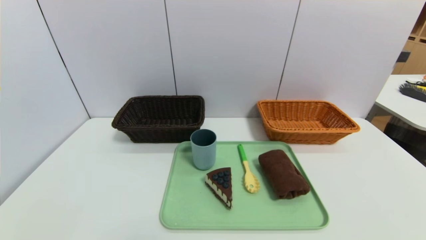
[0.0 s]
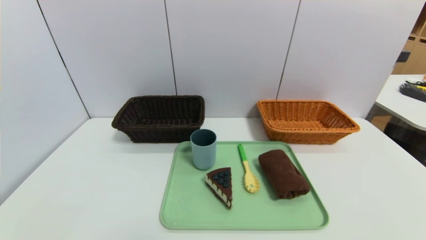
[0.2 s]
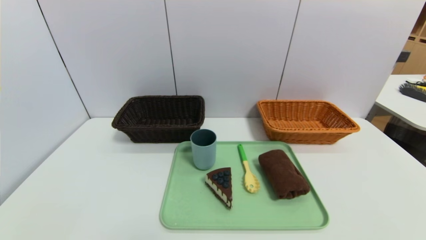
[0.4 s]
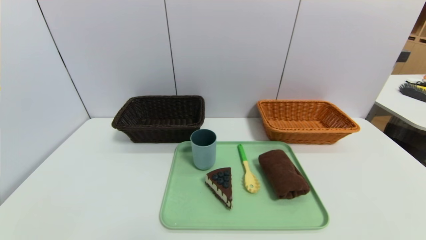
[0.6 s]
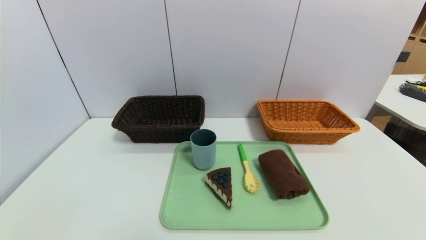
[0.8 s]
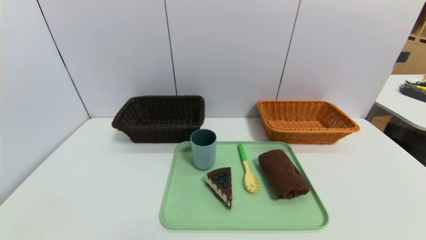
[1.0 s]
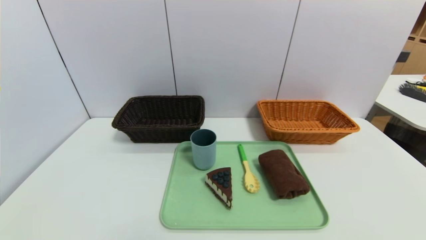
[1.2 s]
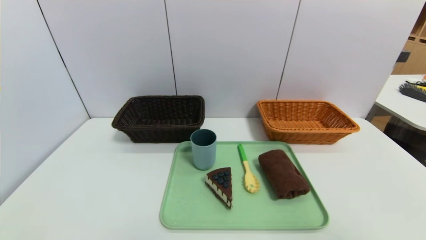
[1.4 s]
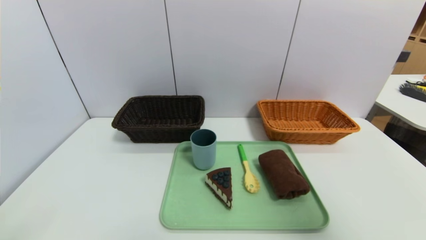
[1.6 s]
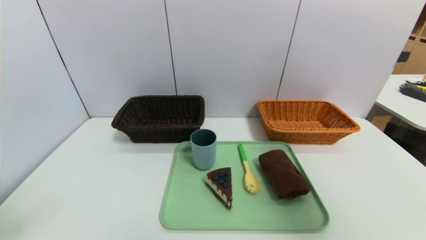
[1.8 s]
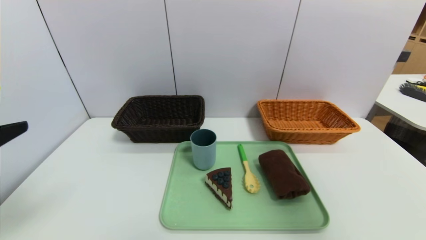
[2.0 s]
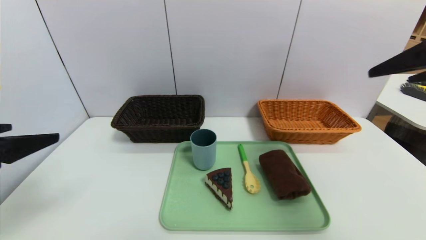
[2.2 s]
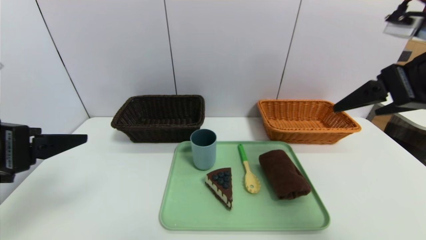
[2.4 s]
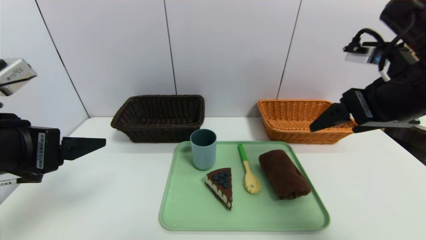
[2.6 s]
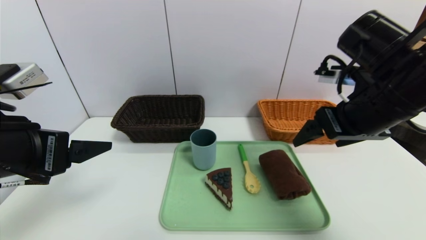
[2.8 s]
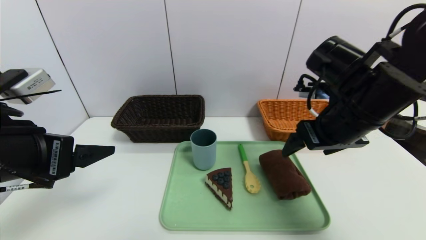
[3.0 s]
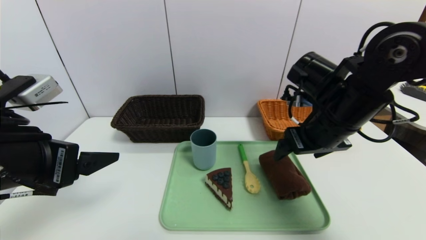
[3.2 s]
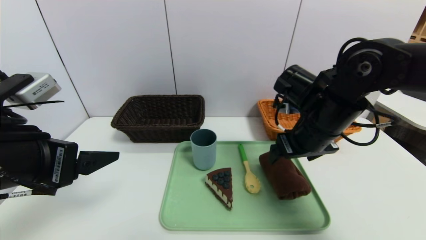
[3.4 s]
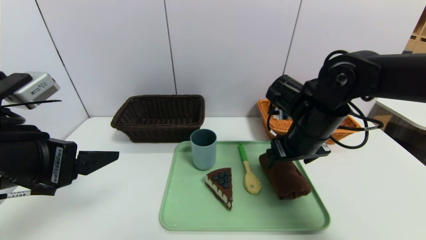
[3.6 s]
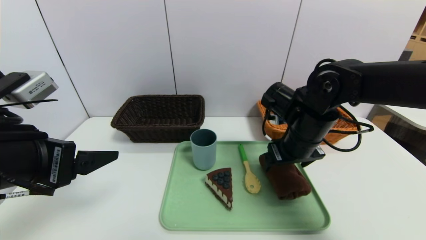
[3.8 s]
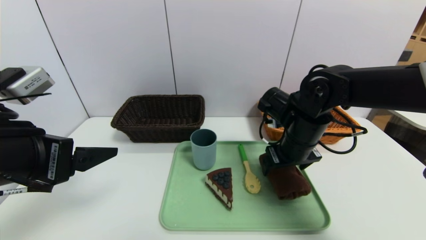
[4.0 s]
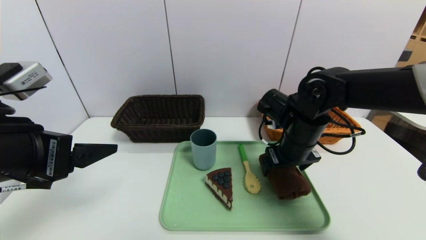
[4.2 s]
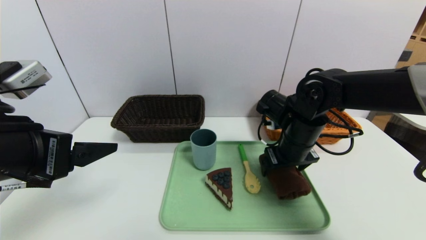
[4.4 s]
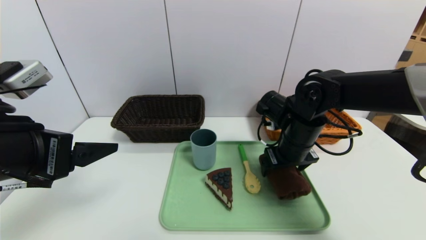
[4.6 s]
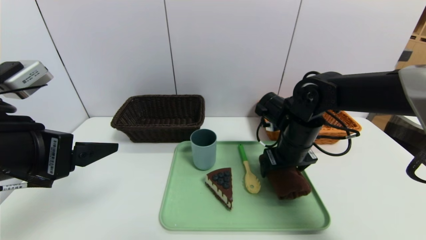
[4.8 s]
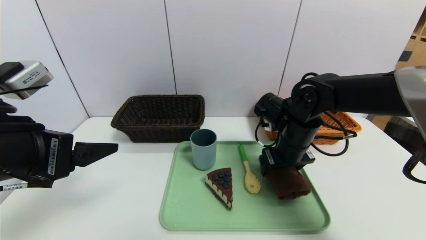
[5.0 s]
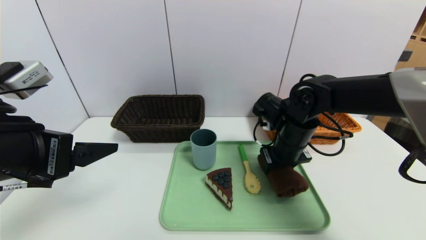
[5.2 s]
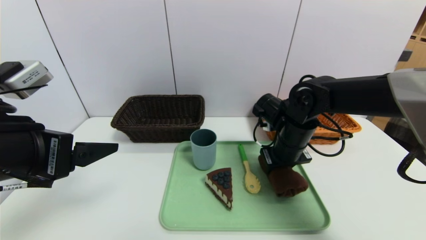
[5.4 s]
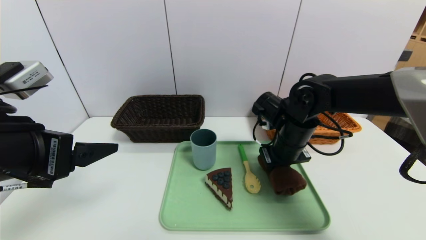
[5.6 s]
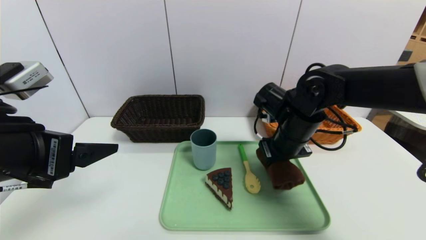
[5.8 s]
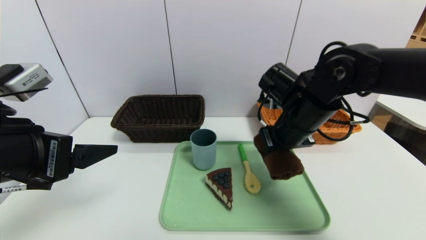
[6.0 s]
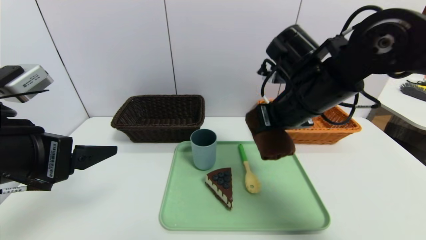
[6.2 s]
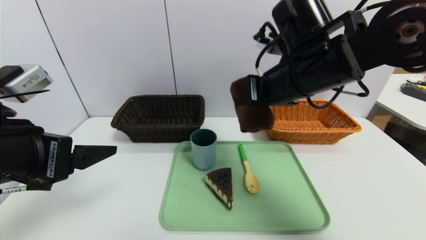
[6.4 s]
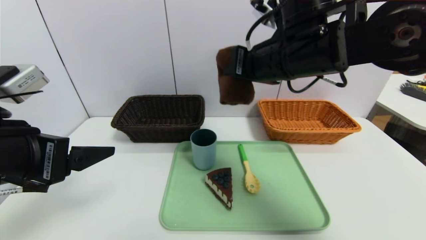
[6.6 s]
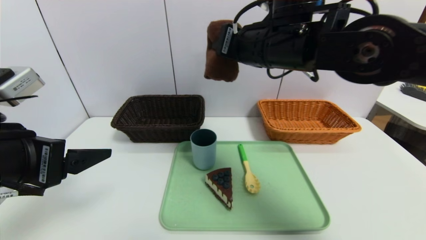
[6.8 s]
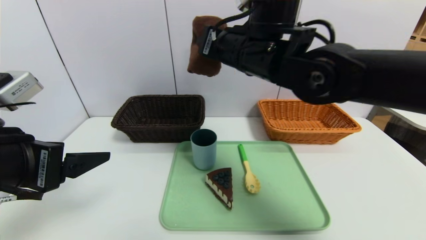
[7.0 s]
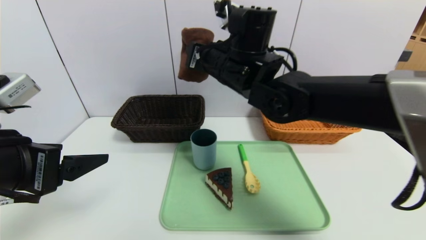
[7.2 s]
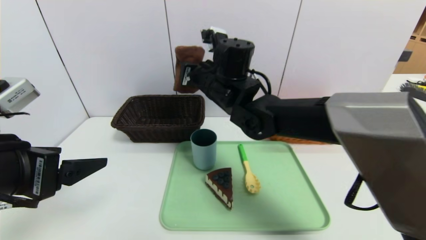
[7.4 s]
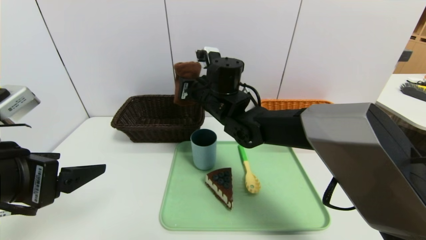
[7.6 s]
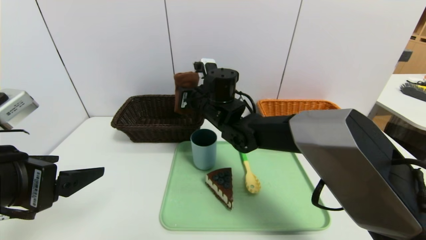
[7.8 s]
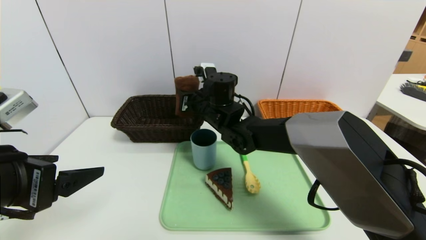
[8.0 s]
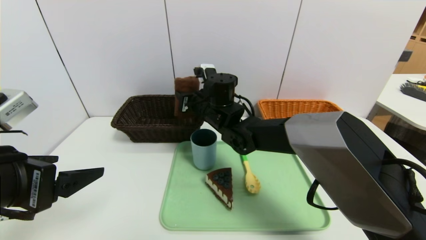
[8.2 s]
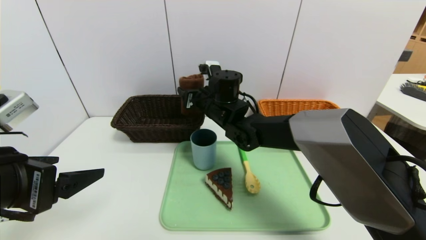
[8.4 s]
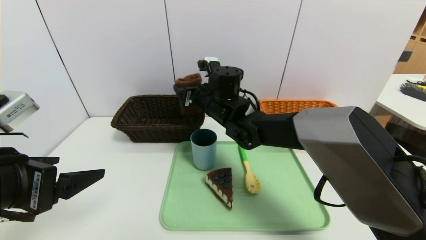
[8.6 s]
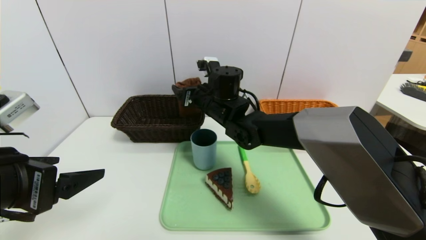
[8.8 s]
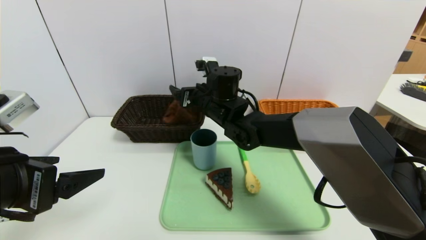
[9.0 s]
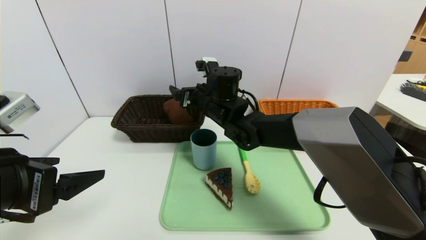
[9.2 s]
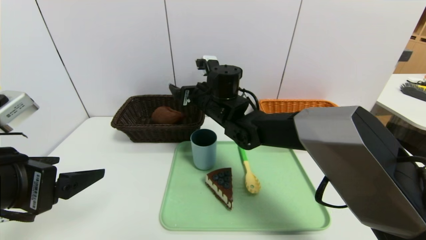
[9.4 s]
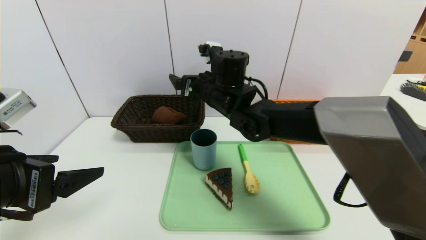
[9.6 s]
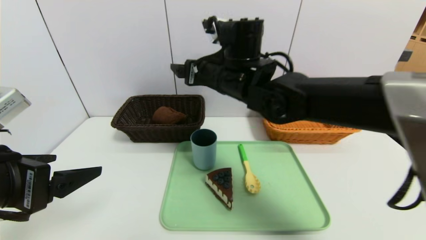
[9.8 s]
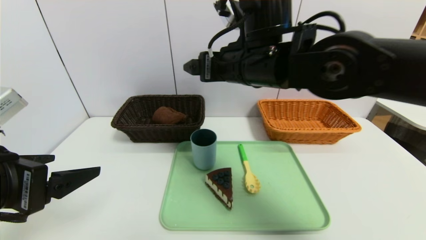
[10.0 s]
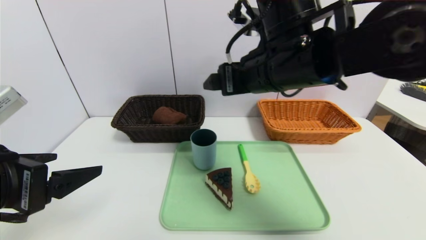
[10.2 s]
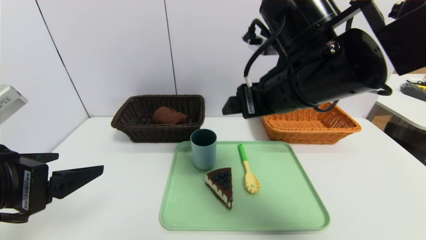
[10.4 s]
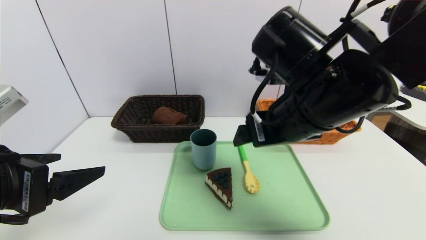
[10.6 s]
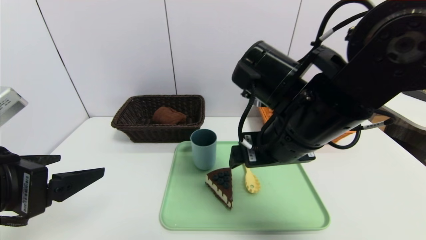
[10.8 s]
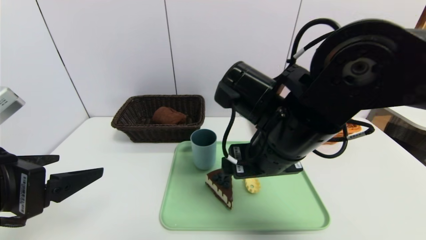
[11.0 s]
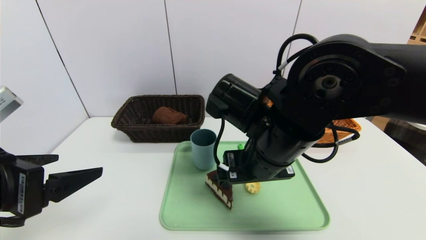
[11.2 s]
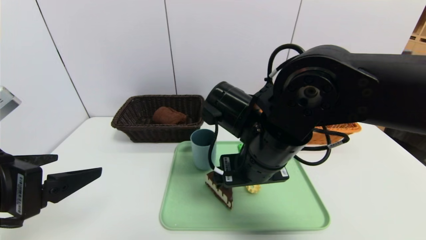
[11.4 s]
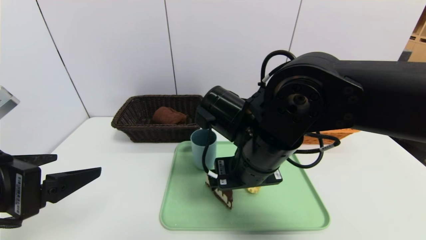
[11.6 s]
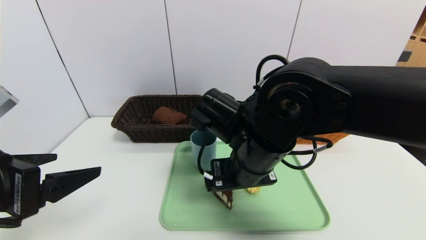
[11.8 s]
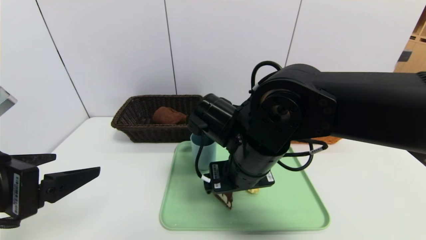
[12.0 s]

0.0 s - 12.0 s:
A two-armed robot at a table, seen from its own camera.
Task of the whole recording: place the food in the right basket with the right gripper, and place the non food items in the left basket with the left gripper.
Step, 0.0 s - 9.4 s: Grasp the brown towel and put it in the left basket.
0.0 s - 1.6 s: The right gripper heads upward, covering roughly 30 cm.
1.6 s - 3.0 s: The left gripper travels forward and to the right by some 15 cm. Meanwhile the right gripper travels forward, to the left and downward by about 30 cm.
3.0 s - 4.4 s: The right gripper travels downward and forward by approximately 10 cm.
4.4 s - 6.0 s: The right gripper moves upward, some 5 cm, and closes its fingers.
6.0 s - 7.6 s: The right gripper shifts approximately 15 cm to the left and forward.
7.6 s - 9.0 s: The right gripper opens.
9.0 s - 10.4 s: The right gripper is displaced backward, to the right and upward by some 20 cm.
10.4 s - 12.0 s: The right gripper shifts about 10 cm downward and to the left.

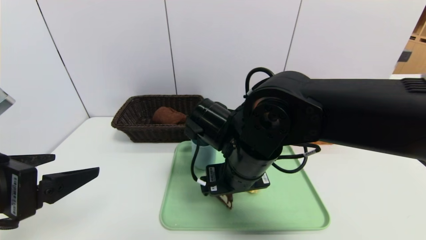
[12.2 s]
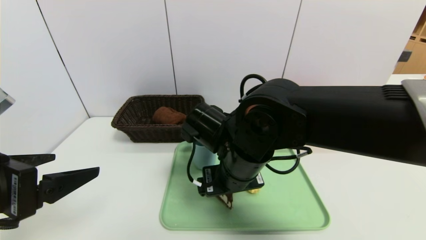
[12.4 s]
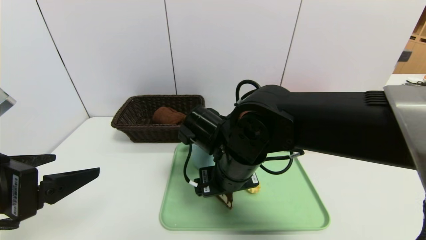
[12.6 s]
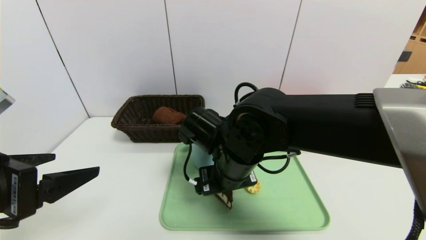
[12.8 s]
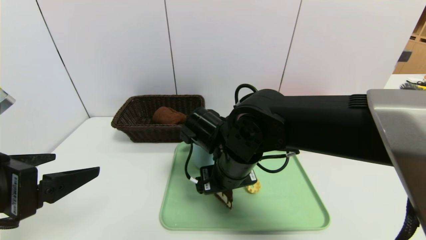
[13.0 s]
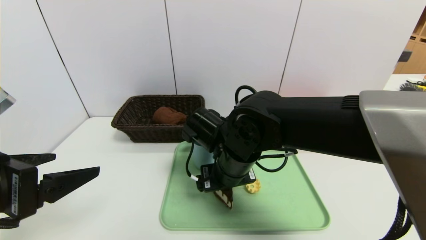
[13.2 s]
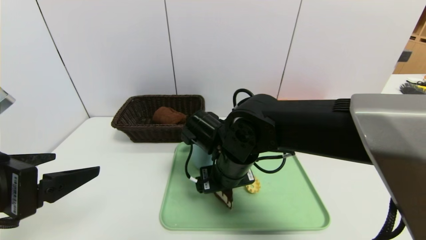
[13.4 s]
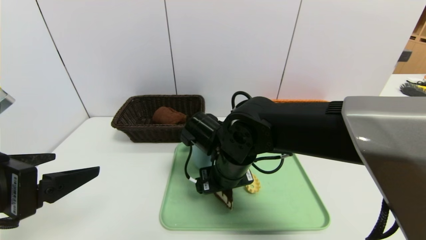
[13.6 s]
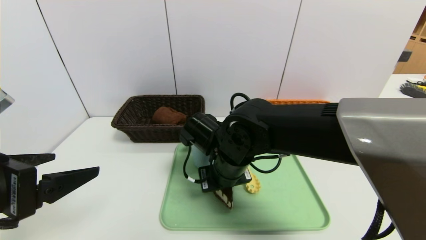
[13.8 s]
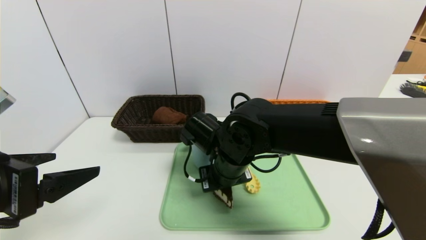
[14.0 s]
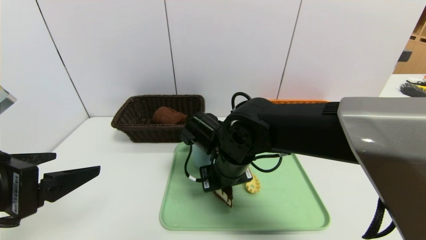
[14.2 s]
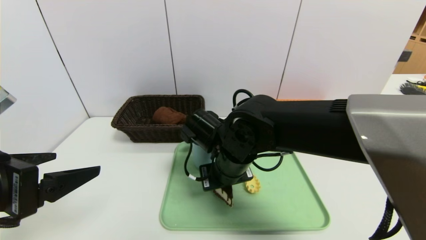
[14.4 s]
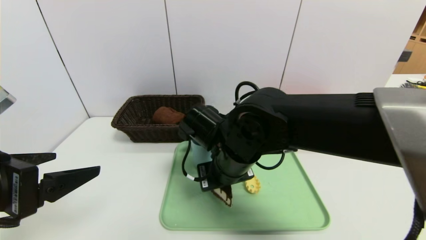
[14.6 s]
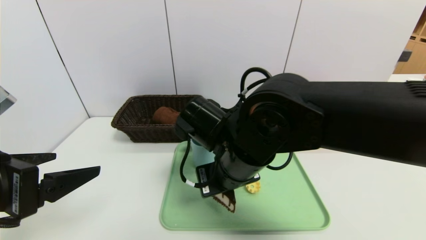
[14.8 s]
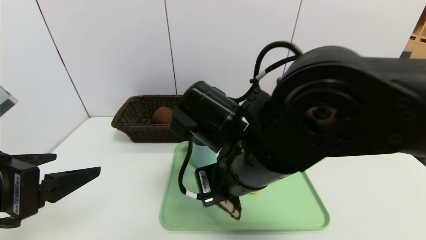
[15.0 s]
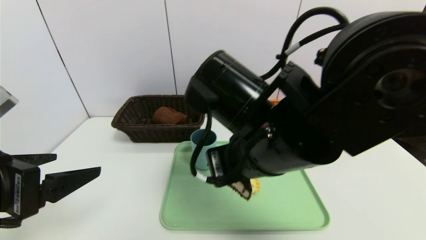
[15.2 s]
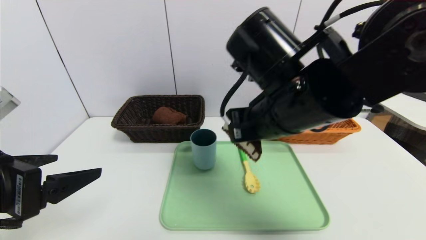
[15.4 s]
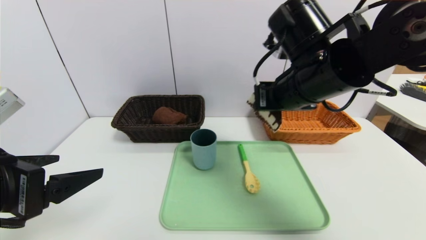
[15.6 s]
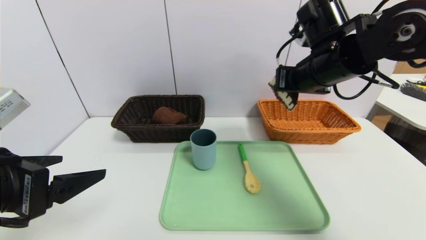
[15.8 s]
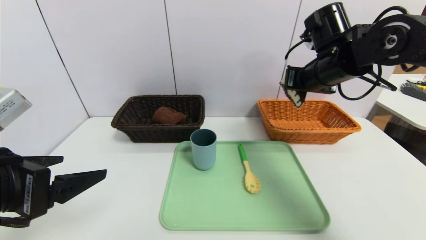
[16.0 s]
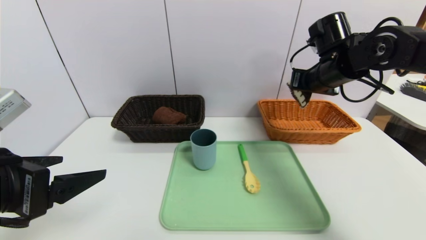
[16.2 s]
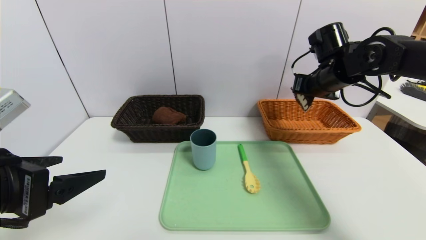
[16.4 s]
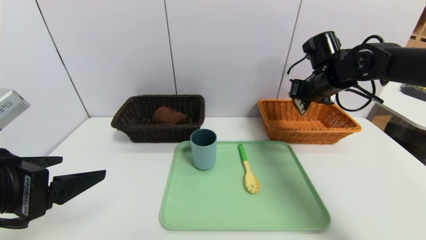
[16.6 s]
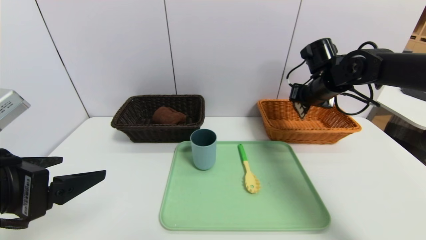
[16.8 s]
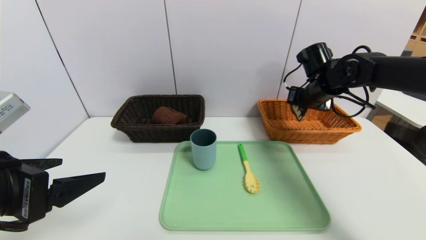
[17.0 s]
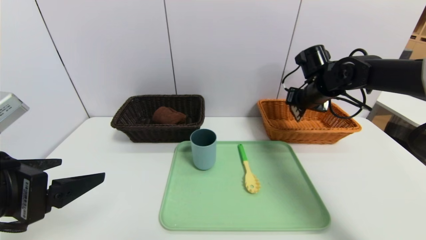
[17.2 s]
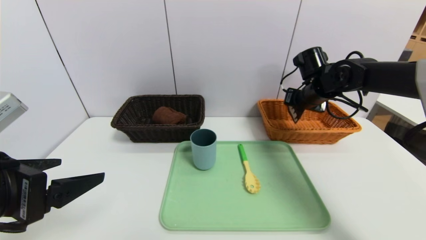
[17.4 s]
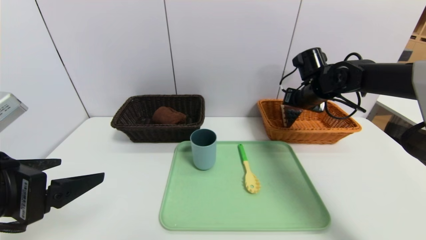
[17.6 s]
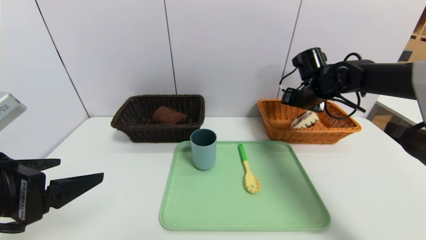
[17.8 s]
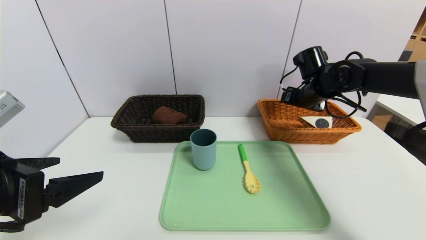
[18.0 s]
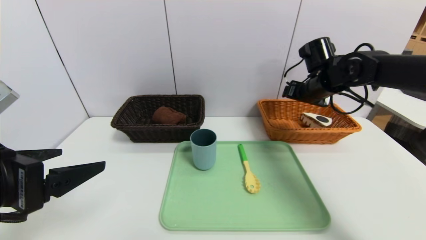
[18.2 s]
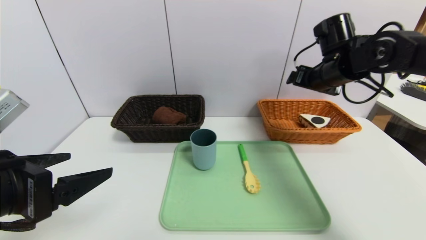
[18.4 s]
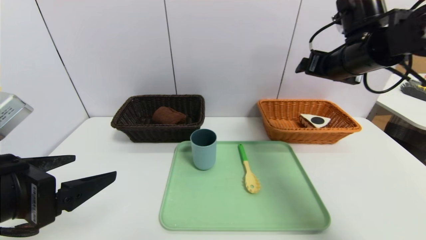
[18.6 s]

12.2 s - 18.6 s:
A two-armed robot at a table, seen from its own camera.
Task of the whole recording: place the food in the right basket with the right gripper, and place the non food items in the left basket with the left gripper.
Step, 12.2 s - 17.8 s: Grasp the triangle cake and put it in the right basket.
12.2 s - 13.8 s: The right gripper moves some 5 cm, and closes its fingers.
13.8 s - 15.4 s: The right gripper heads upward and to the right, covering approximately 15 cm.
15.4 s - 17.0 s: The right gripper shifts some 25 cm forward and to the right.
17.0 s - 18.6 s: The right gripper goes about 15 cm upward and backward, and opens up.
